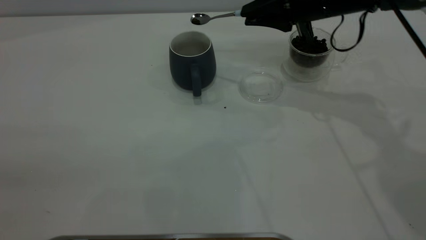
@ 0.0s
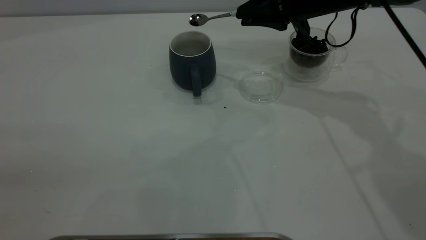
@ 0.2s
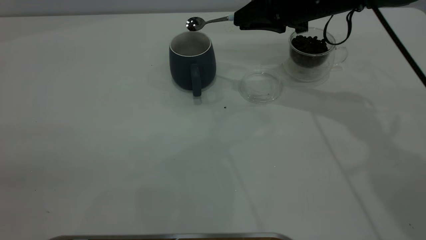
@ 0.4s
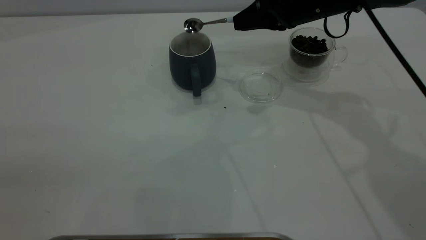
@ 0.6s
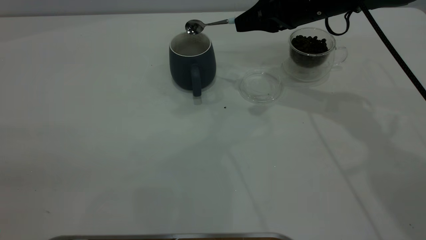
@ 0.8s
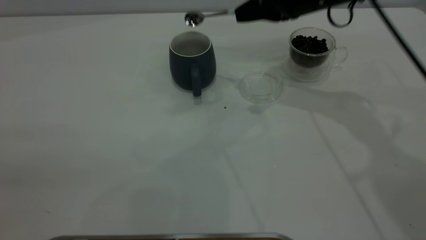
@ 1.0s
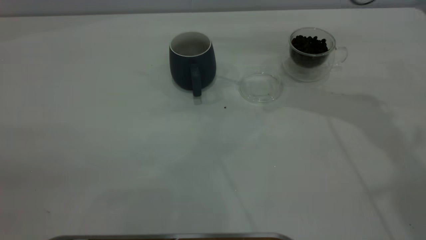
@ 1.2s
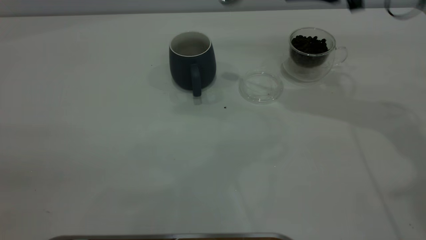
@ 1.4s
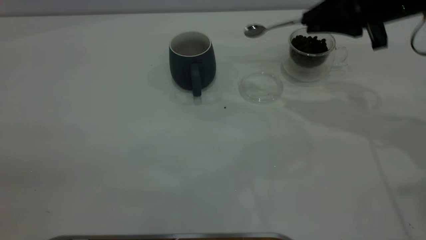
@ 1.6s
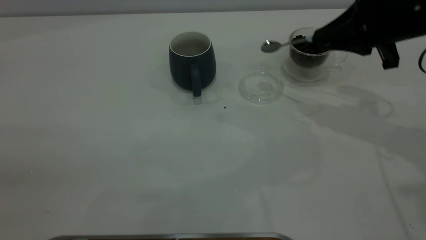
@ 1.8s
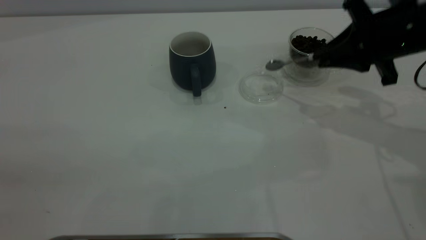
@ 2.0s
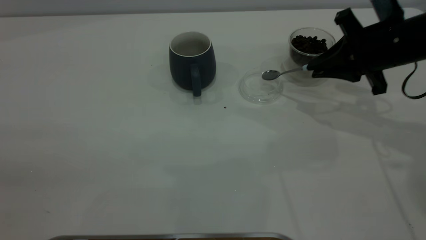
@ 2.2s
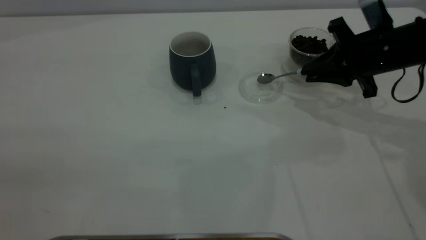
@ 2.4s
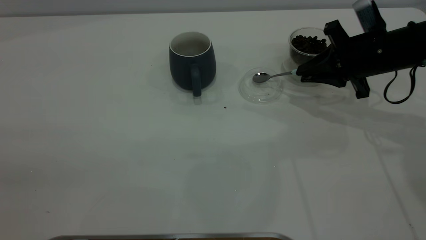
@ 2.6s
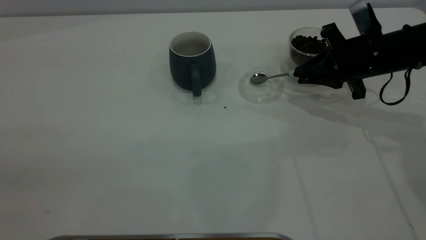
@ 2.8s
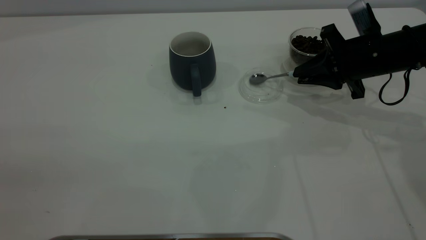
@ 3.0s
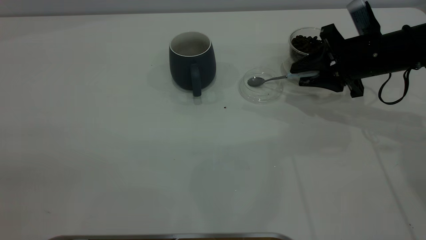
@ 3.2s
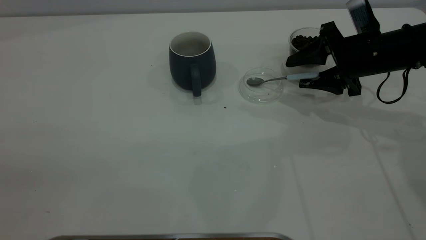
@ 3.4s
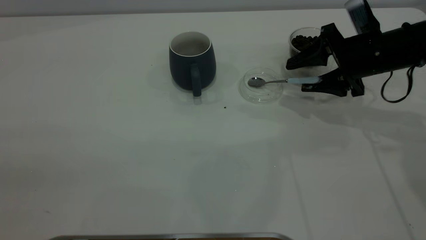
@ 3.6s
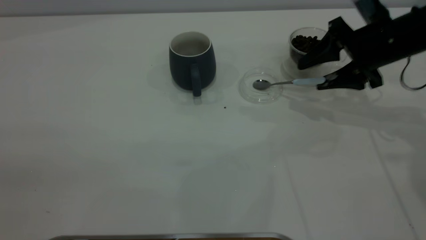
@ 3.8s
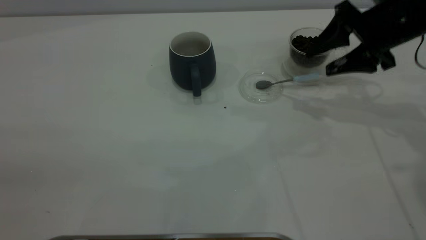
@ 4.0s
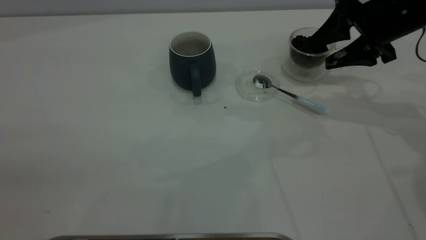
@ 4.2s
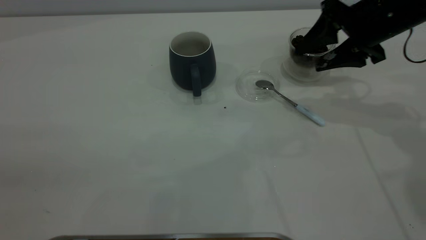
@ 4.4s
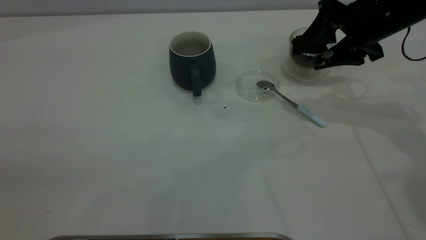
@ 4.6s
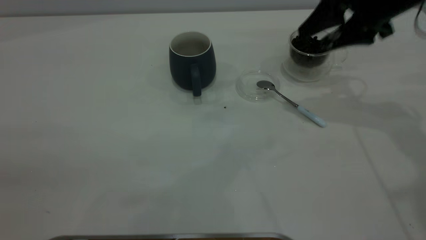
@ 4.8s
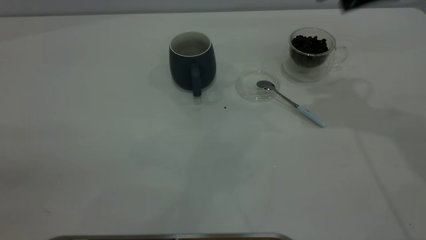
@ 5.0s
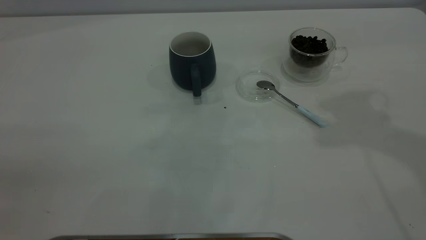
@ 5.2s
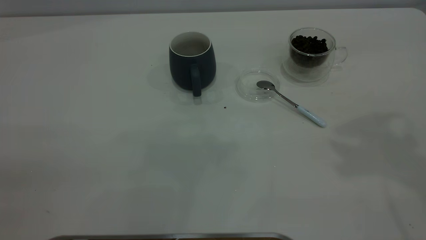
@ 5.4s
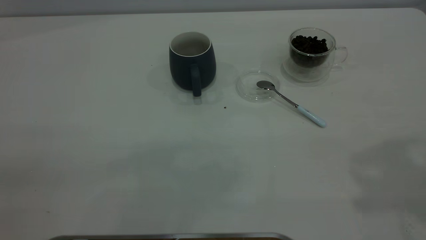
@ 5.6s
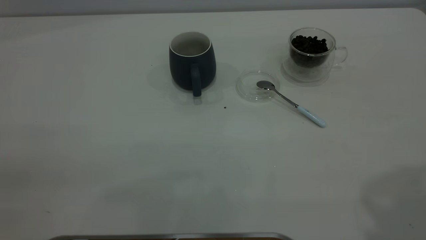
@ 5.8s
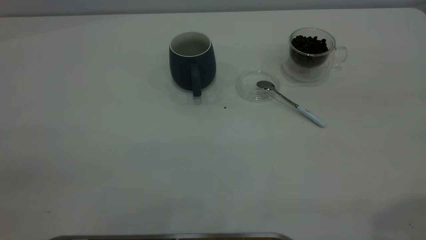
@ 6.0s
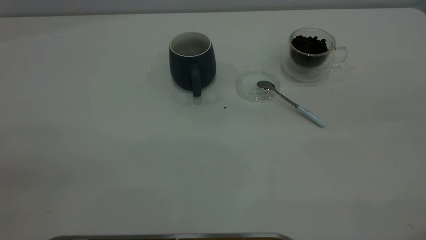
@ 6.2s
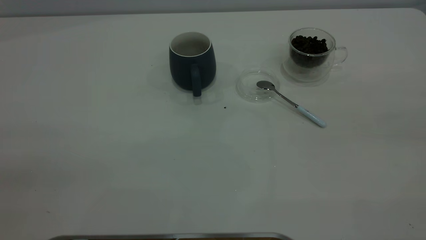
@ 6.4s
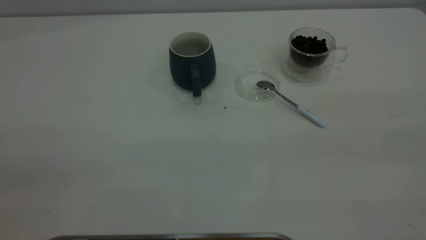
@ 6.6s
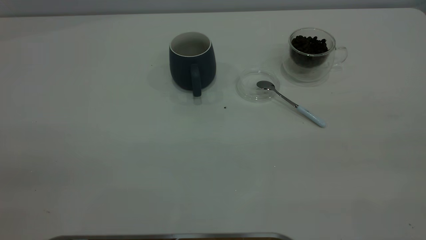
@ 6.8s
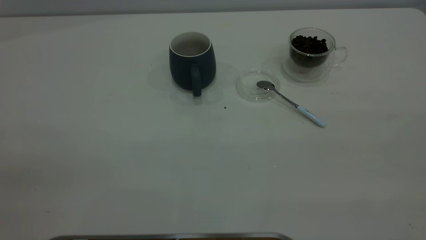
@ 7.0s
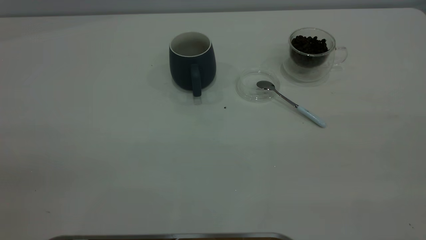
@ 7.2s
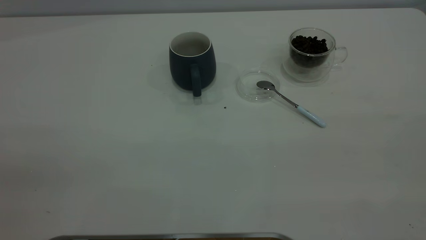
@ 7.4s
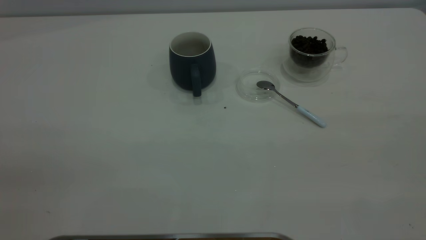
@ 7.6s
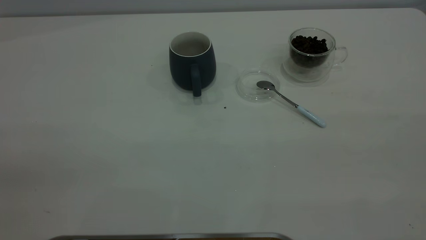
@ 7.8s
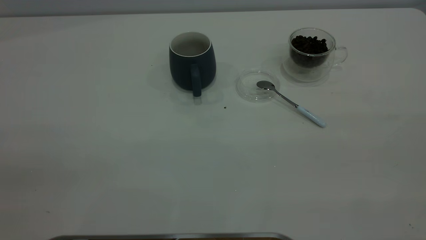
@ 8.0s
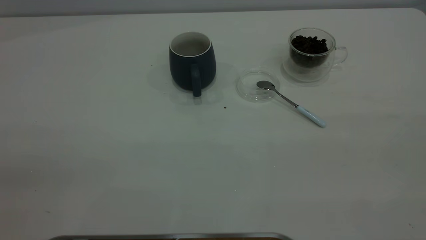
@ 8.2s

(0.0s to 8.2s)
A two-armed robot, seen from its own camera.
Task of the whole recording: the left gripper place the grey cup in the center of the table, the right gripper take the blue spoon from the cup lid and scoop out the coffee beans from the coffee cup and put them into the grey cup, the right gripper put the spoon back into the cup lid.
Step, 1.2s - 4.2s: Place the spoon back in its original place.
0.0s - 1.6s: The right gripper is displaced to the right and backward by some 10 cm.
1.6s - 3.2s: The right gripper is displaced downward by about 10 cm, and opens its fingers.
3.2s - 5.0s: The right gripper travels upward by approximately 20 cm.

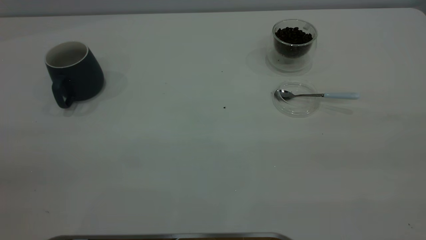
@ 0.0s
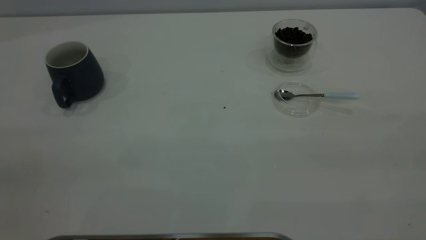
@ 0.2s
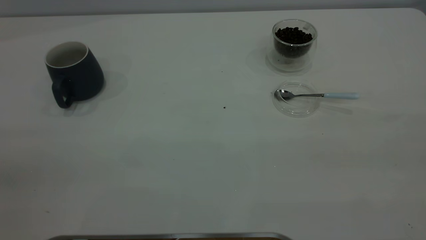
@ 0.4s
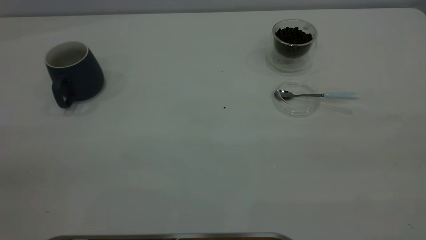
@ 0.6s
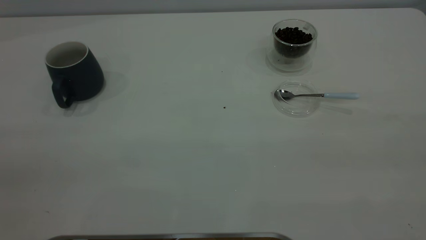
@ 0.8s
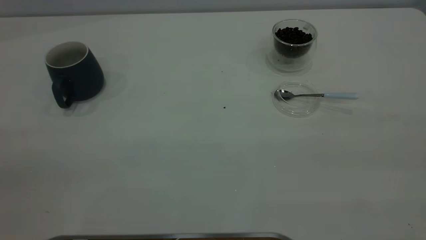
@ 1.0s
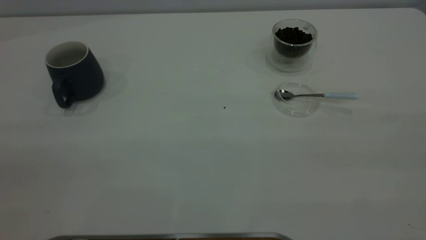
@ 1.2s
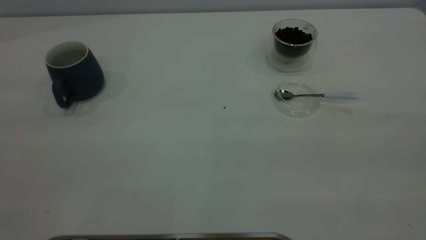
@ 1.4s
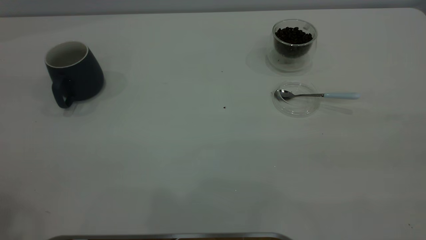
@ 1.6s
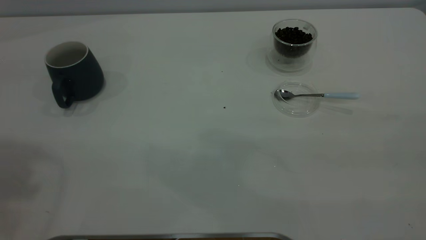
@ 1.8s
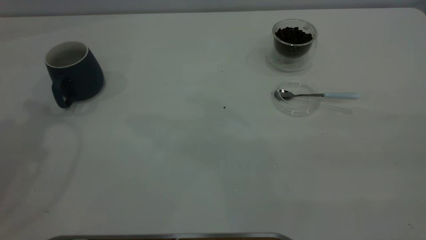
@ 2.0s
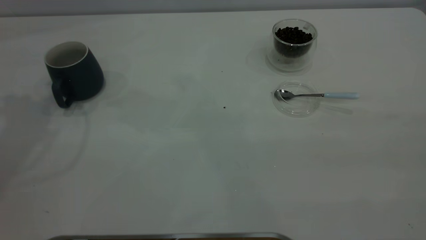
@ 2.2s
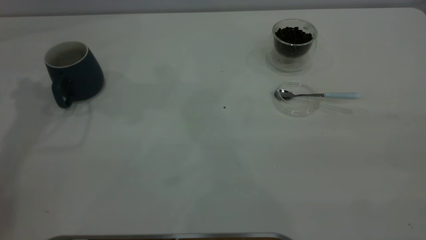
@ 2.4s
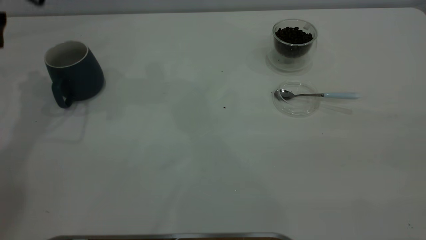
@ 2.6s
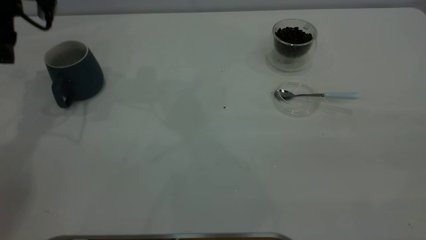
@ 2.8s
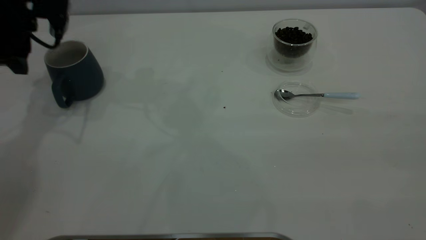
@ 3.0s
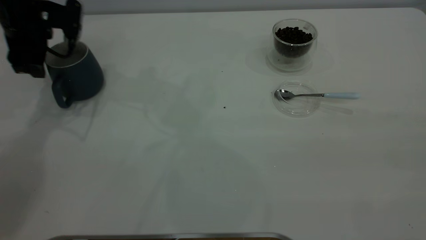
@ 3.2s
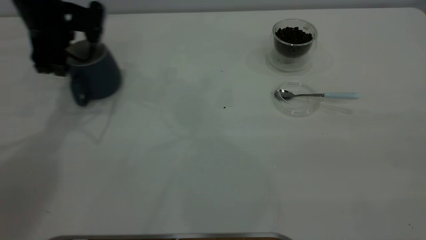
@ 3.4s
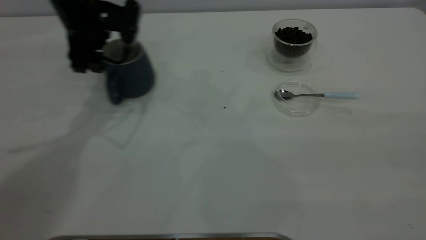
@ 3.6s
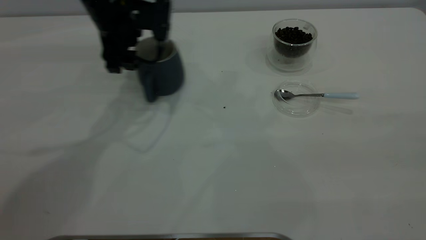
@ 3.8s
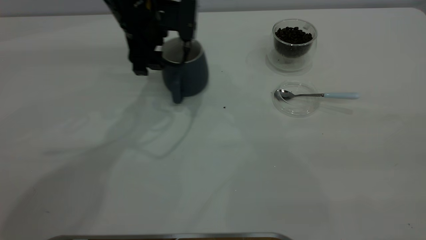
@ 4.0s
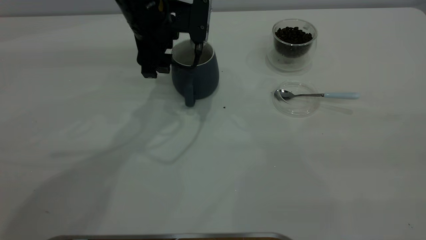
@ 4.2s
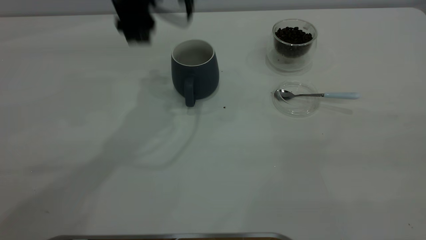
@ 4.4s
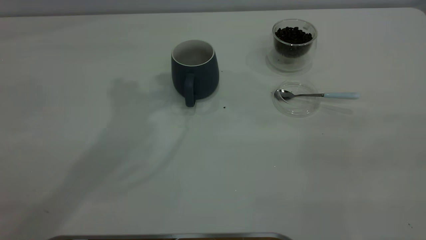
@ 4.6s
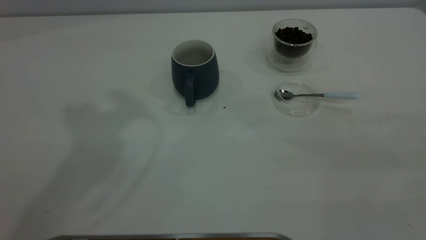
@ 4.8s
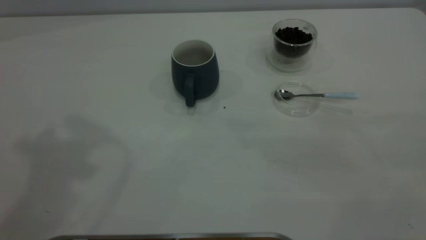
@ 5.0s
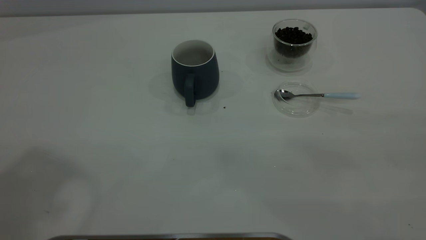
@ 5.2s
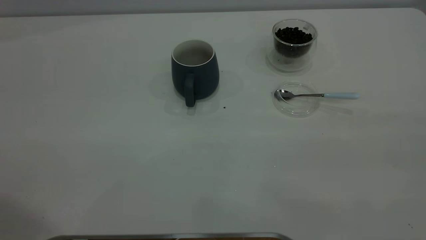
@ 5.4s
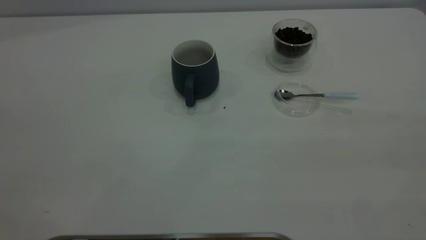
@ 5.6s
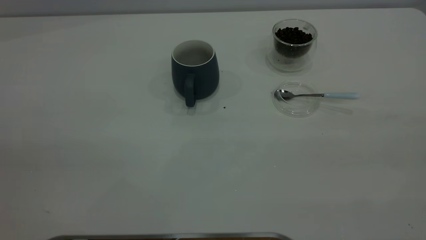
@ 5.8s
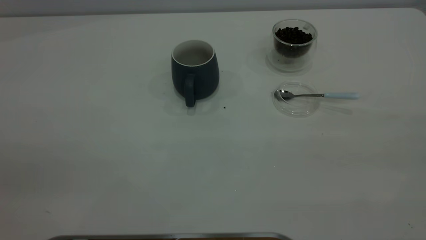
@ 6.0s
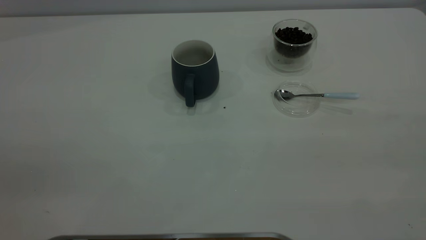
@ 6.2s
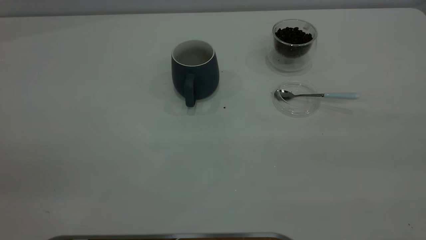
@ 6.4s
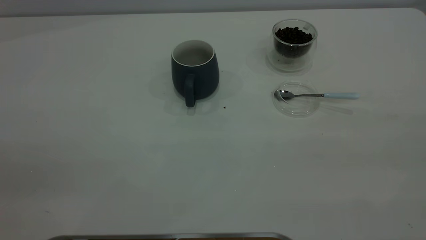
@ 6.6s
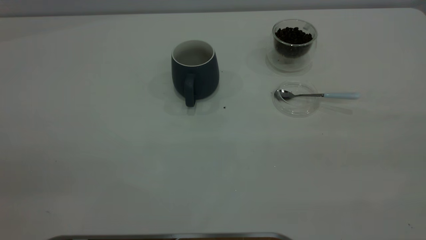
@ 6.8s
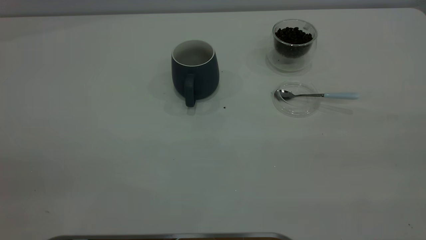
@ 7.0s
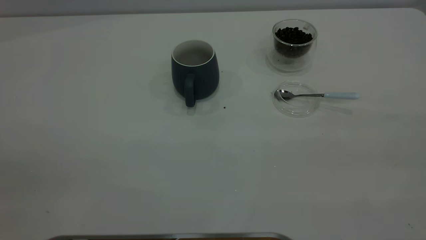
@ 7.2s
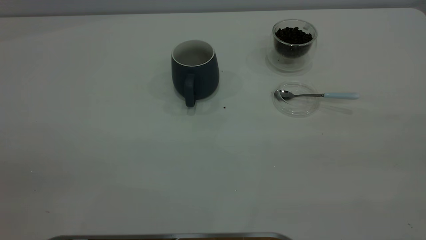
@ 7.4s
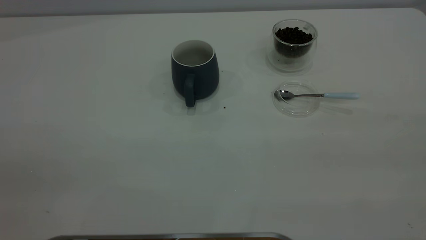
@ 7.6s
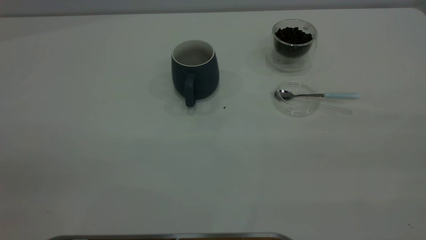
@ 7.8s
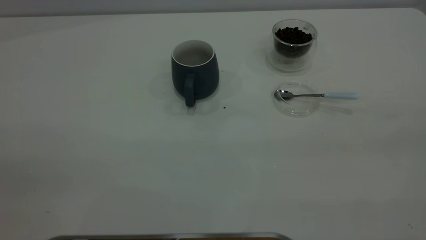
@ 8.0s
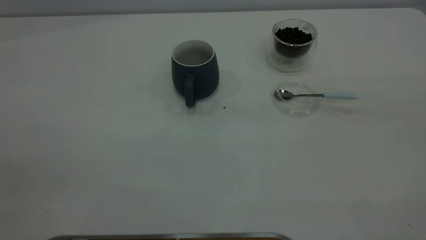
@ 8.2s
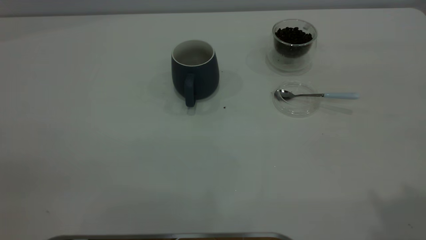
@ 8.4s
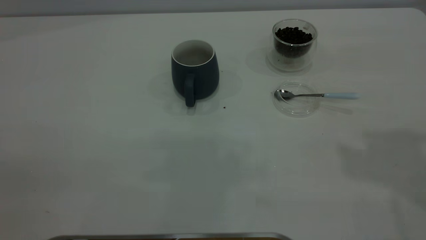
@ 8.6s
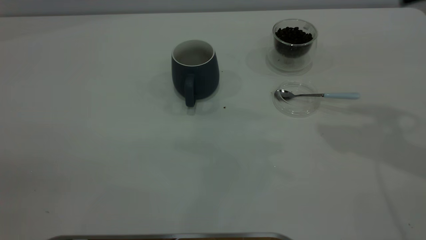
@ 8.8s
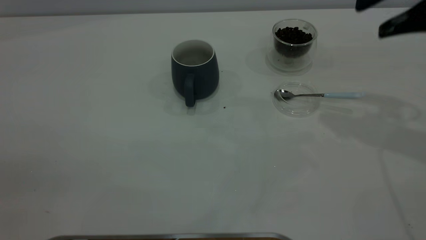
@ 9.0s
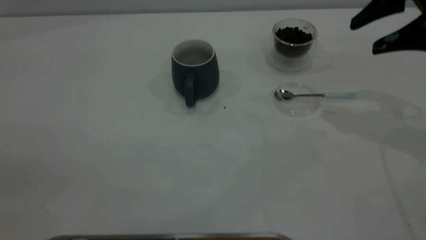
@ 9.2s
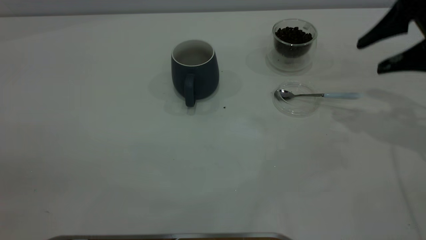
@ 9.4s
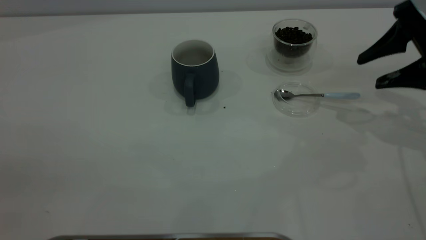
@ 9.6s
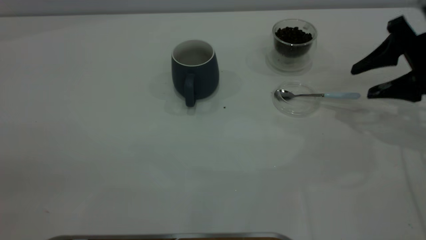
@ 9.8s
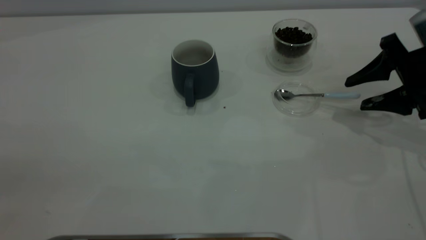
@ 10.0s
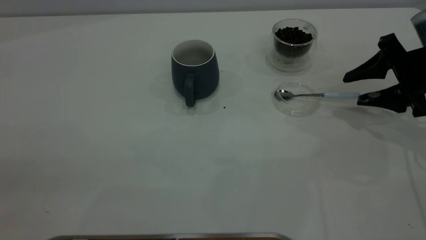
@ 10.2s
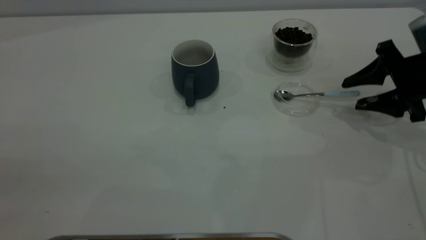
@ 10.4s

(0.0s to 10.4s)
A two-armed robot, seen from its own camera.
Task of the whole recording: the left gripper place the grey cup in the center of the table, the right gripper take the blue spoon from the cup lid and scoop out the coffee beans from the coffee cup and put them into the grey cup, the right gripper put the spoon back into the cup lid.
Step, 0.0s - 4.2s: Move the cup to the center of view.
1.4s - 3.0s: The left gripper moves forward and downward, some 50 cm.
3.0s - 4.4s: The left gripper moves to the right and upward, about 20 cm.
4.4s - 6.0s: The left gripper travels backward and to the left by roughly 40 cm.
7.4s - 9.0s: The right gripper shifts some 30 cm forward.
9.0s - 10.4s: The right gripper is displaced downward by some 15 cm.
